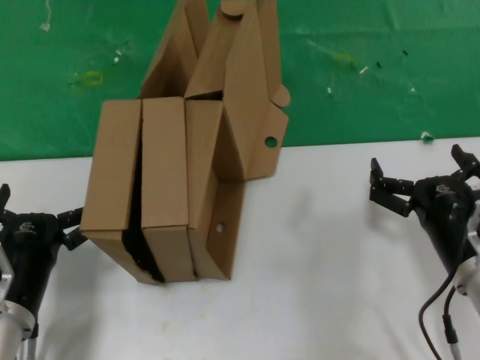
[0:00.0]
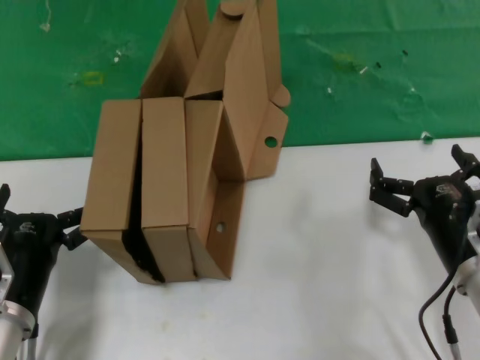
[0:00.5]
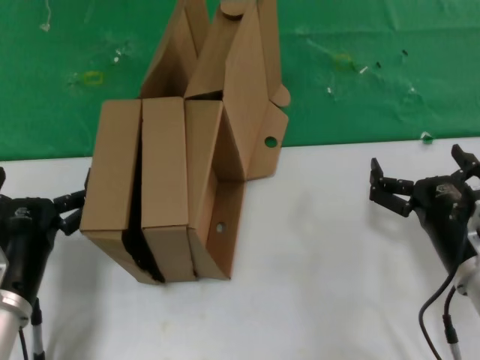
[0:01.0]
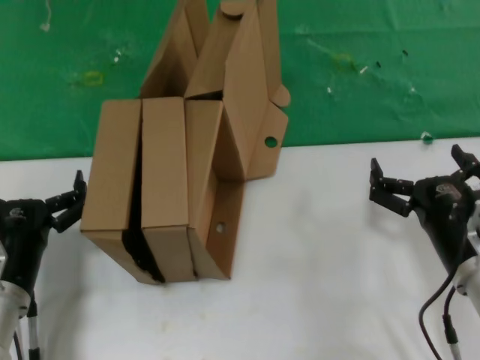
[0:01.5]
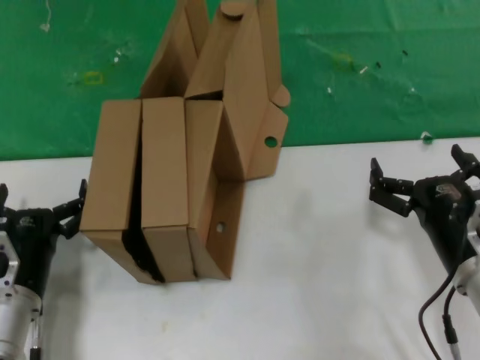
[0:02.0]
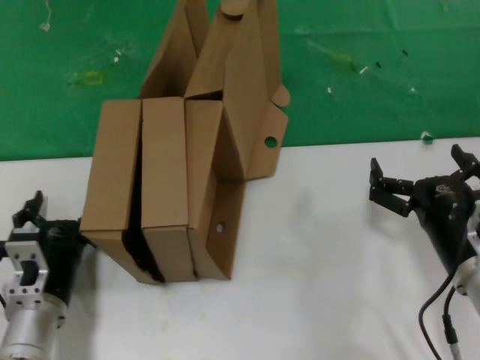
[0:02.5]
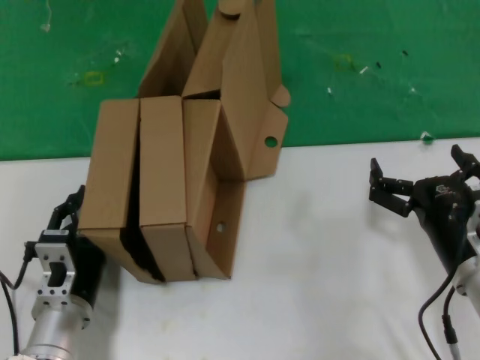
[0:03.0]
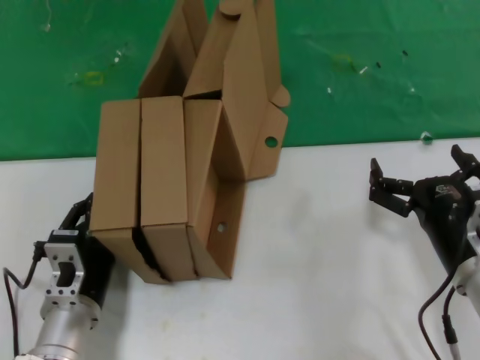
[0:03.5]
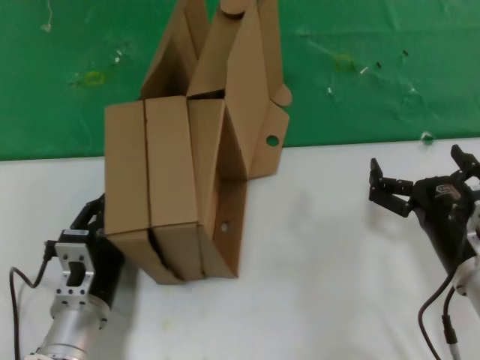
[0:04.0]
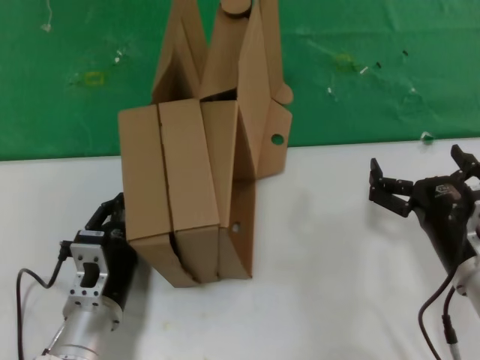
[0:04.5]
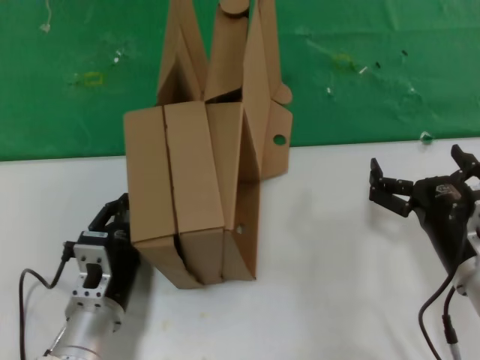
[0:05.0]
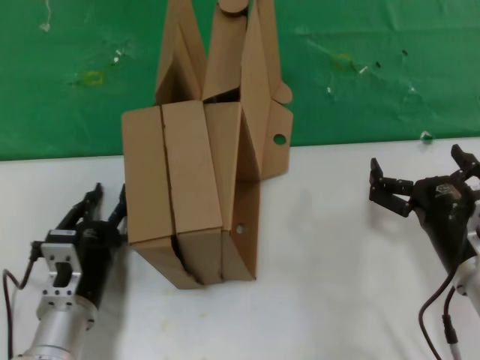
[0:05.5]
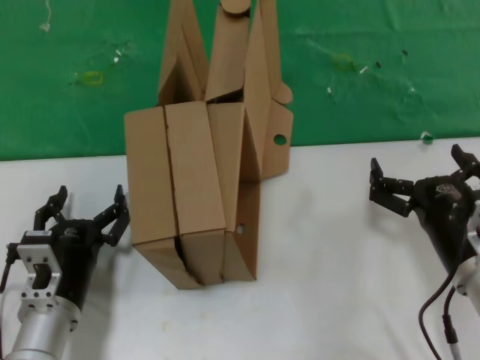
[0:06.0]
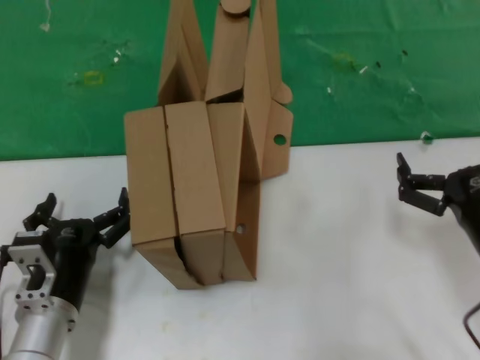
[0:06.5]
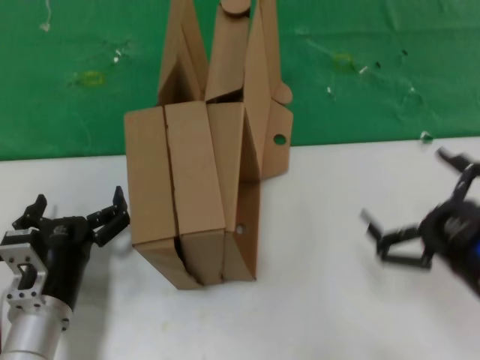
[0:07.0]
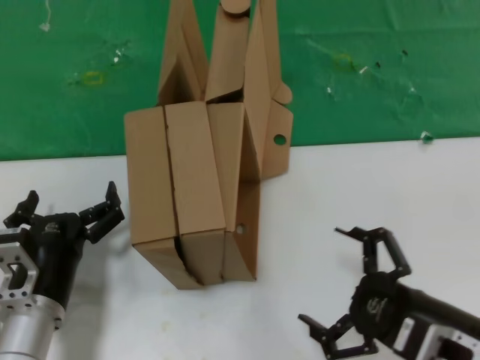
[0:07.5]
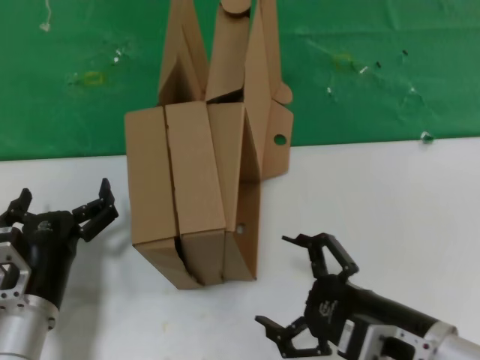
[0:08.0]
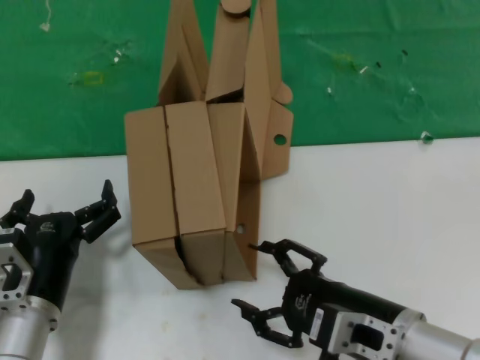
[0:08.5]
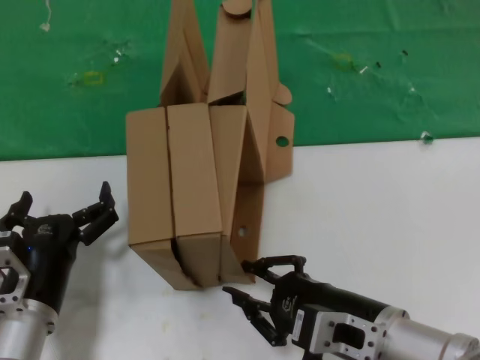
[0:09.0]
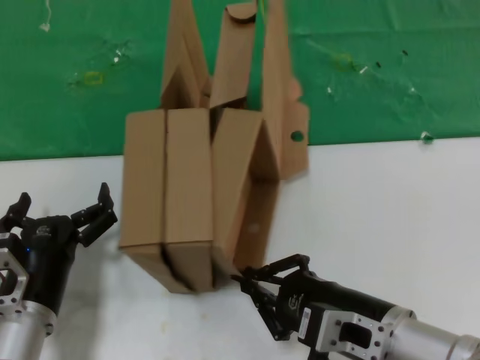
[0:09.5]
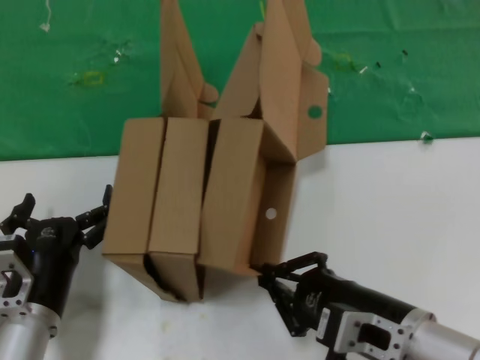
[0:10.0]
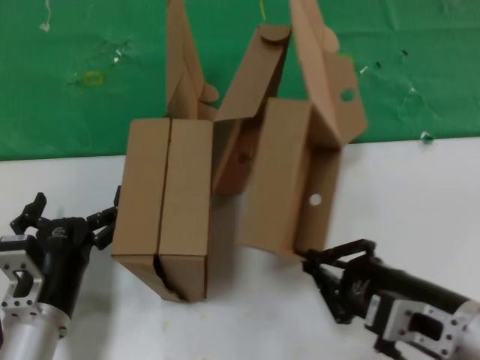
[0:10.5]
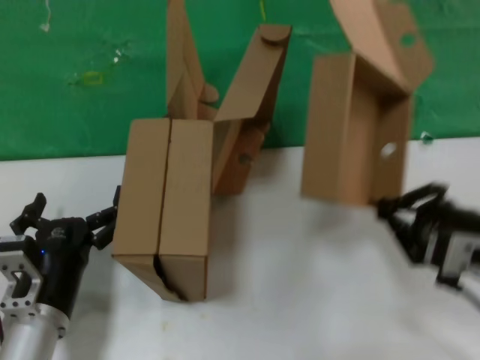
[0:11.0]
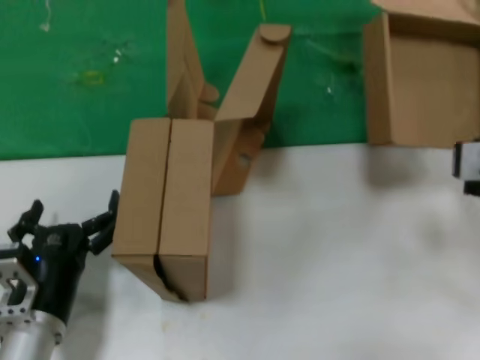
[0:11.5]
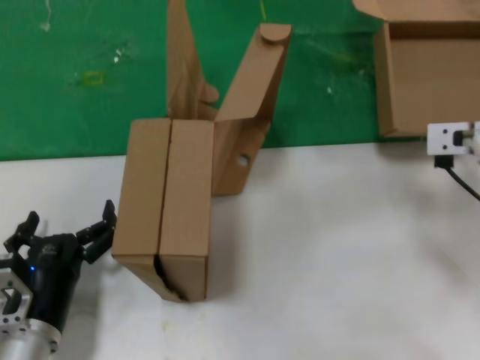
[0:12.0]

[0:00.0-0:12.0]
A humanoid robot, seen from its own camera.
Task of the whole recording: pick up the paper box and put it at the back.
Step, 0:00.0 to 0:09.0: Grasp the paper box.
0:00.0 to 0:02.0: The left hand shifts by some 5 cm.
0:02.0 to 0:04.0: The left hand goes roughly 5 cm to the right.
0:04.0 to 0:06.0: The hands move only a little.
0:06.0 to 0:08.0: The right hand heads backward and to the left, covering about 10 cm.
0:10.0 to 0:12.0: The right hand heads forward, upward and to the right, covering about 25 cm.

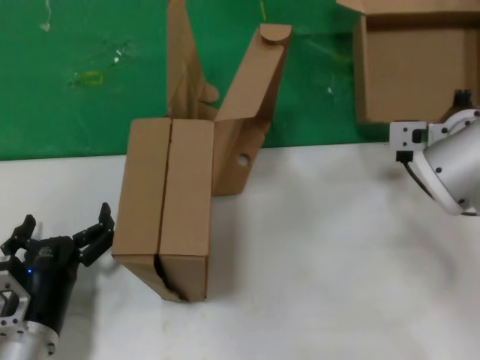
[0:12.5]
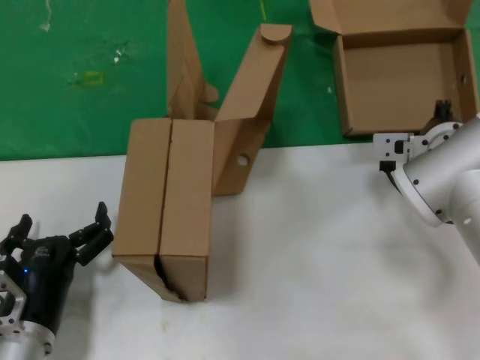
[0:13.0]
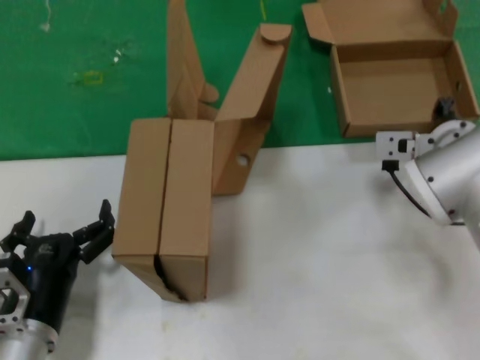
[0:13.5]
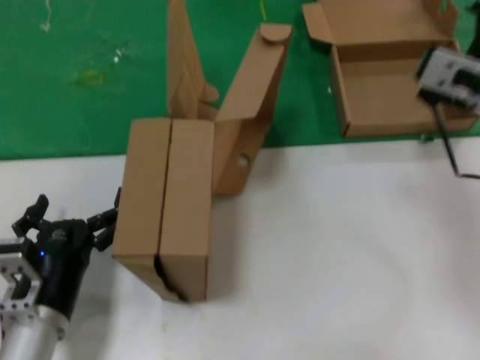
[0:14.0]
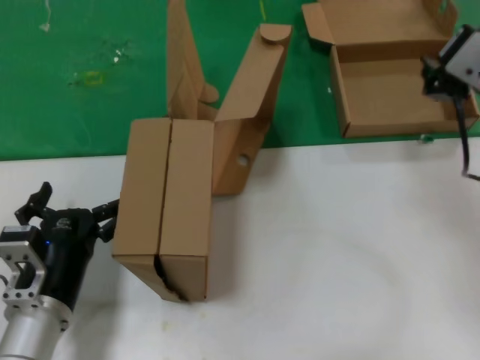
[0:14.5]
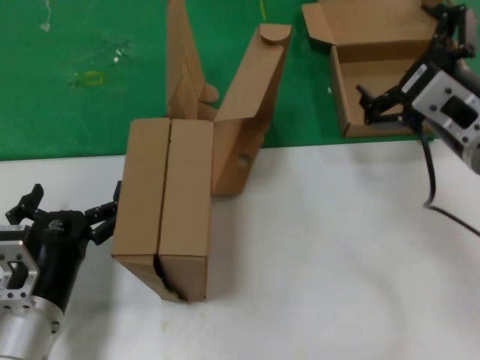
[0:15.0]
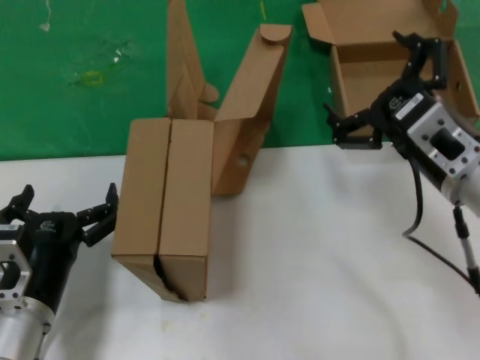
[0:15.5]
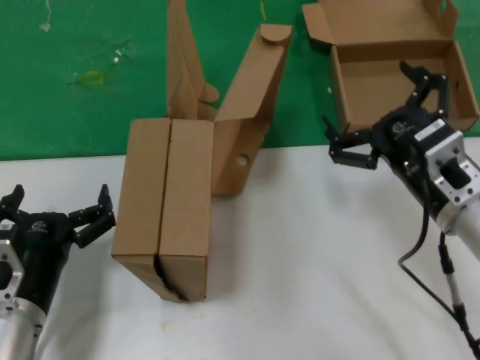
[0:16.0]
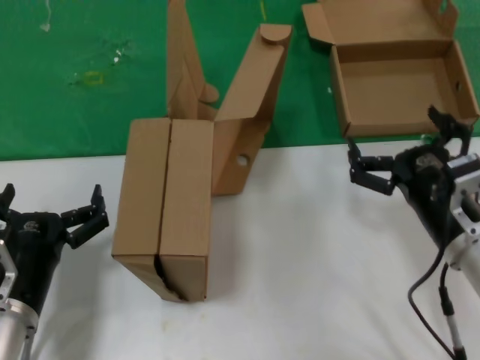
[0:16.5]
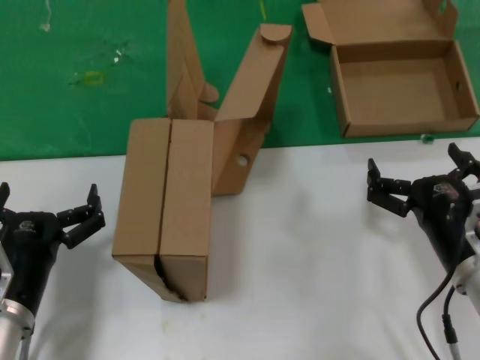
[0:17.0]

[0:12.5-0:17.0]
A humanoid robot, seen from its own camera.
Task of the whole recording: pick up the paper box and put it at the back.
0:12.5 to 0:14.5: The left hand changes place by about 5 cm. Meanwhile the right hand shifts roughly 15 cm backward and upward.
0:14.5 to 0:17.0: The right hand is displaced downward by roughly 20 cm.
